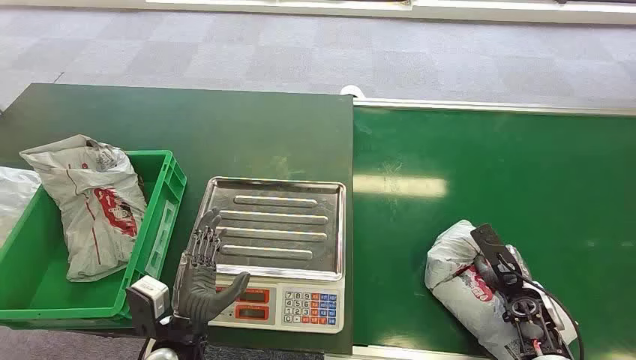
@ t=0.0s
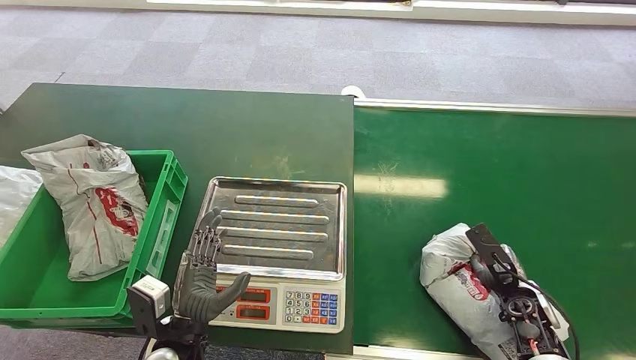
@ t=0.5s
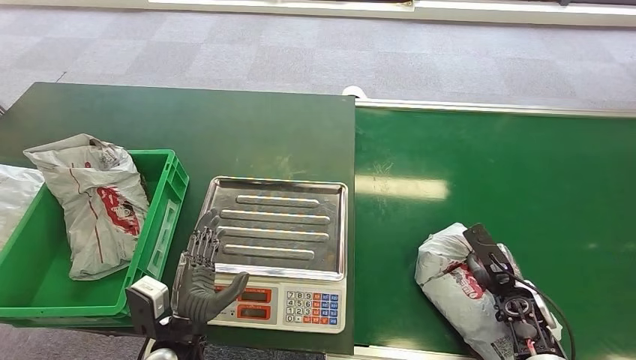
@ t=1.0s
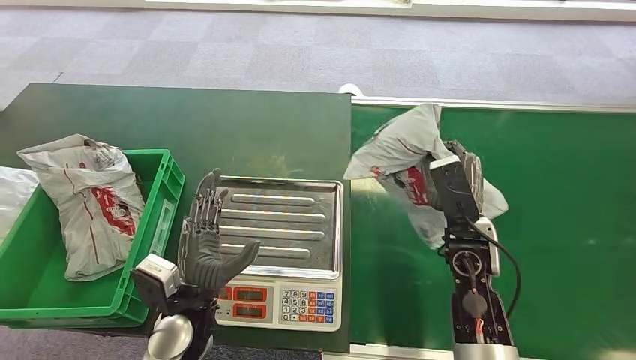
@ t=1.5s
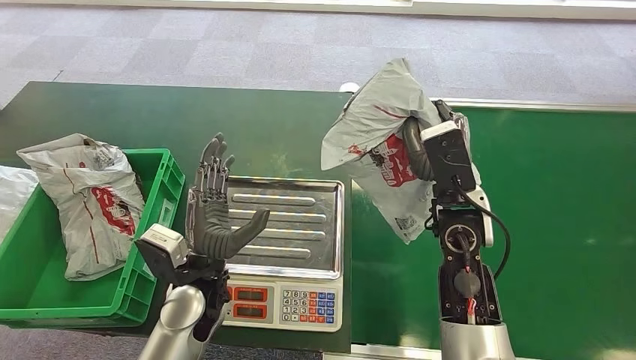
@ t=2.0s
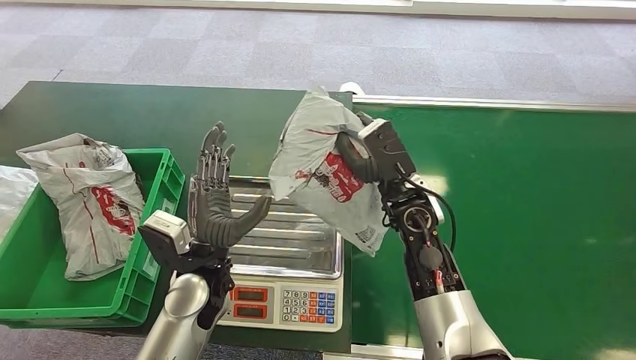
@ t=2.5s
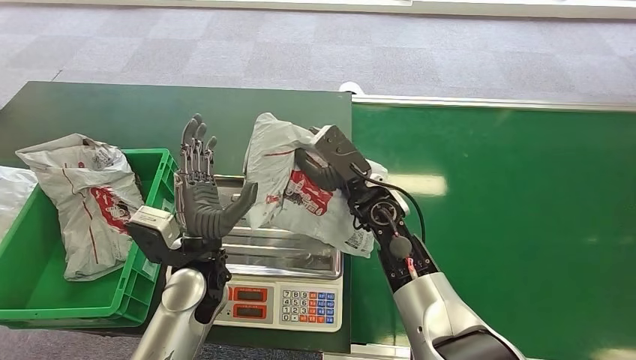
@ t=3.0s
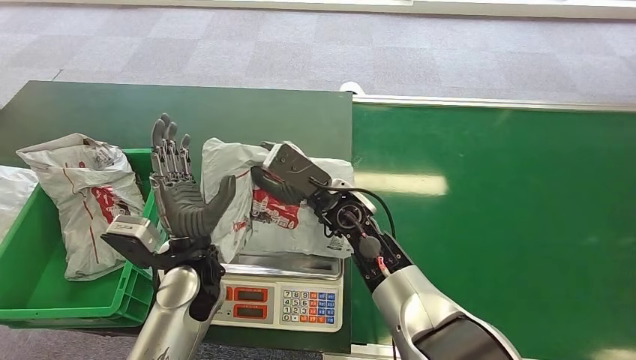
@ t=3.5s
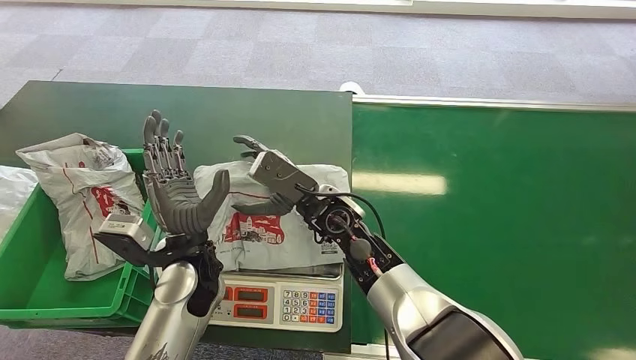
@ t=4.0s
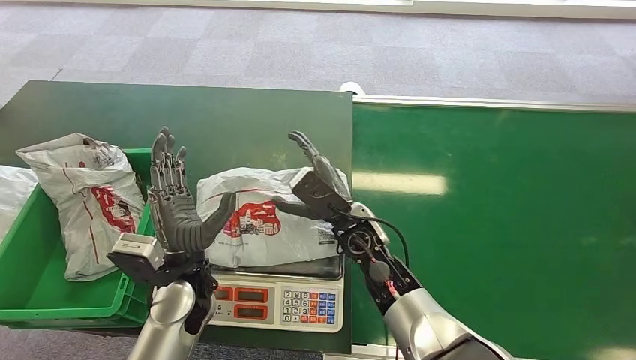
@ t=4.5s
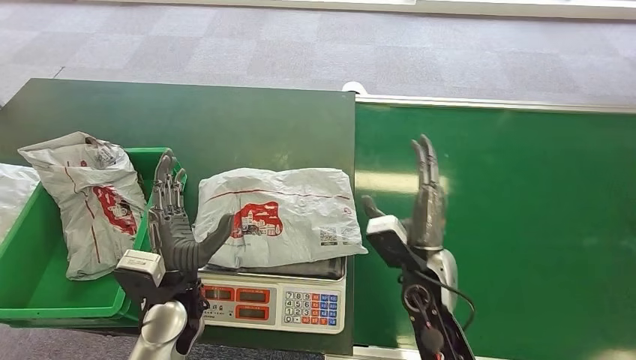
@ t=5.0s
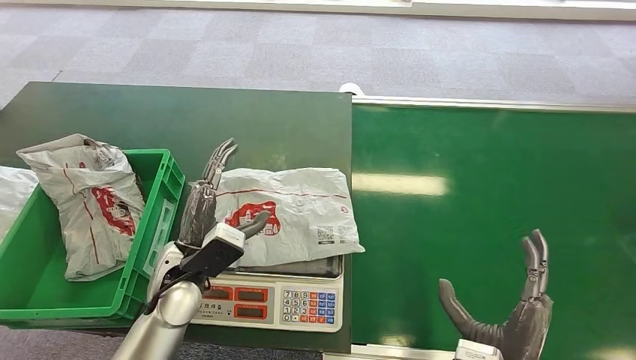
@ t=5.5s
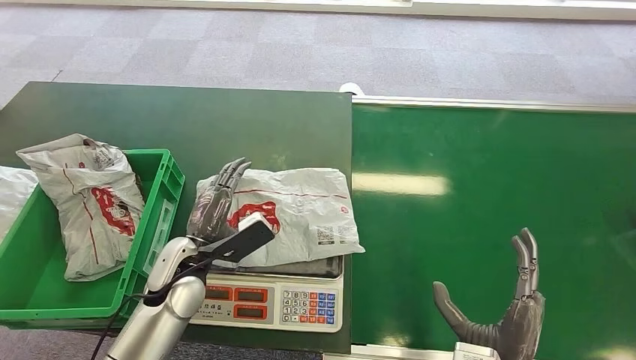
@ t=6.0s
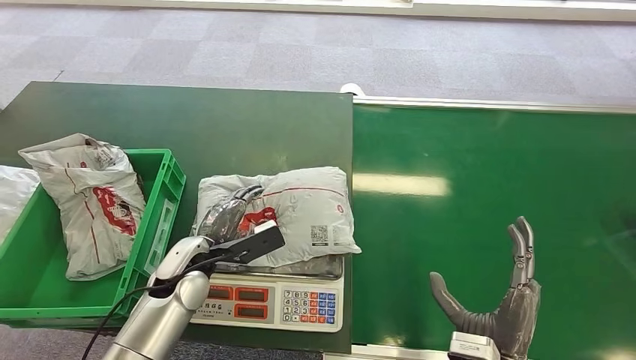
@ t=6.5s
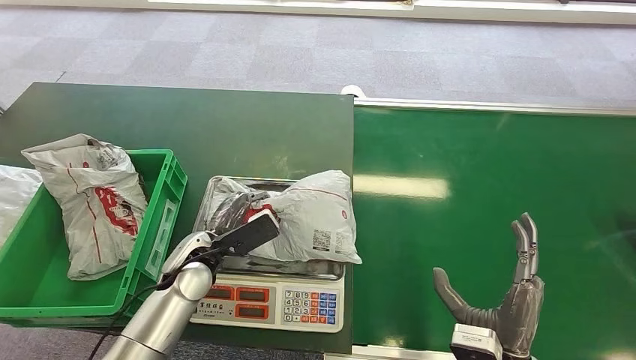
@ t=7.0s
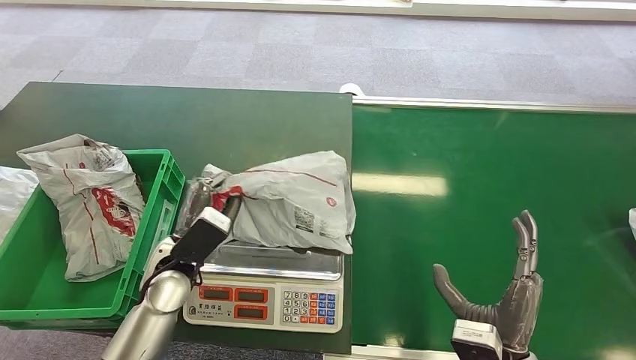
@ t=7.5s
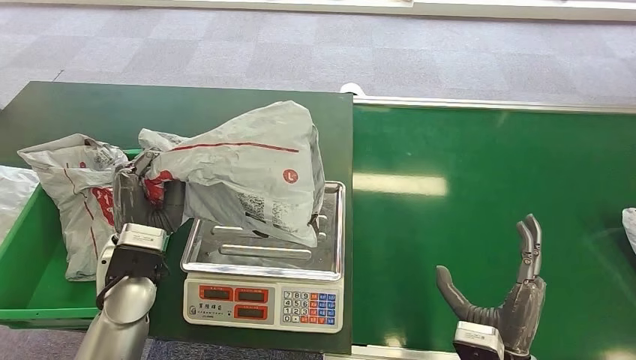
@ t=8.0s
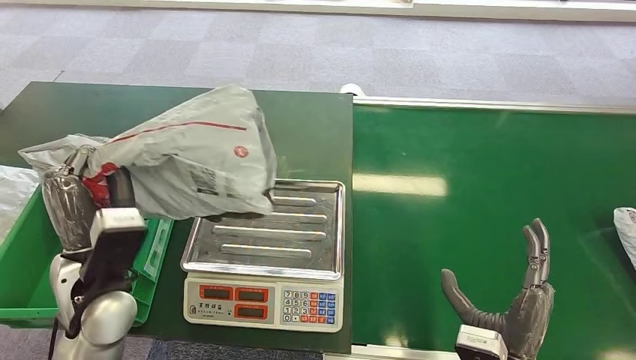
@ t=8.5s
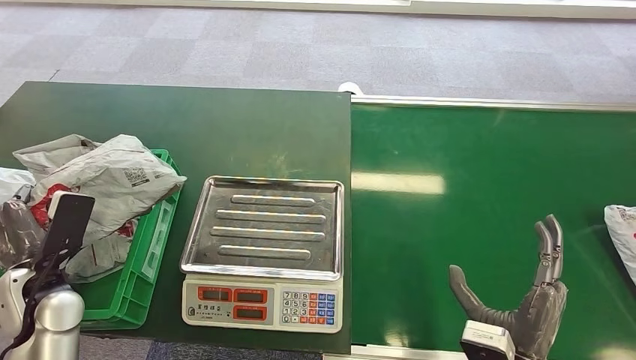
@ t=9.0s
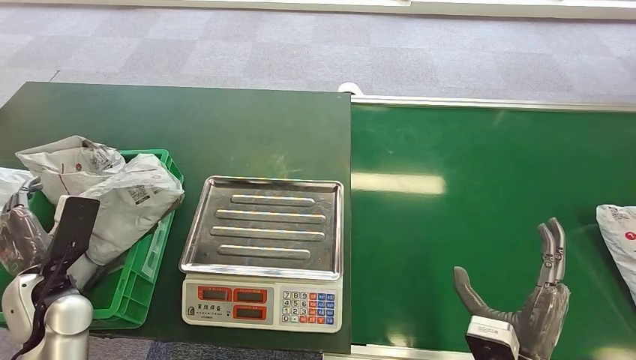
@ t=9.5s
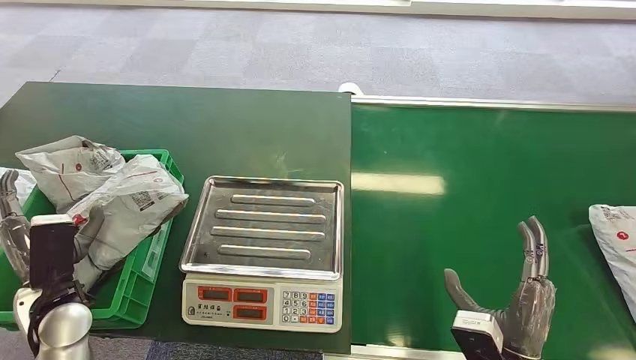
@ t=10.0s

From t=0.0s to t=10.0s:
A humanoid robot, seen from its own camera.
Step, from t=0.0s to t=1.5s: Pick up the package from the conveyor belt.
Step, from t=3.0s to t=4.5s: Place the package onto the inbound machine.
Step, from t=7.0s to t=8.0s: Pick up the package from the inbound machine.
Step, from t=9.0s to t=9.5s: Place the package into the parcel locker.
From t=4.0s to t=6.0s: The left hand ends up approximately 5 cm from where it was, while the right hand moves backward and to the right, some 30 cm.
From t=6.0s to t=8.0s: The left hand heads upward, covering about 5 cm.
